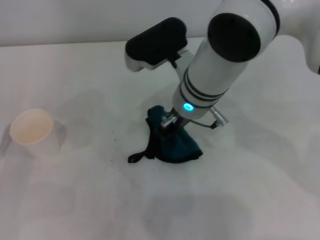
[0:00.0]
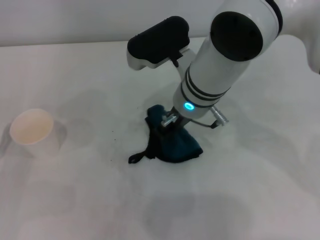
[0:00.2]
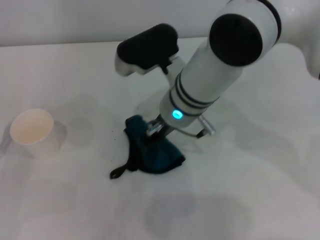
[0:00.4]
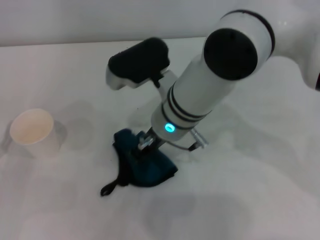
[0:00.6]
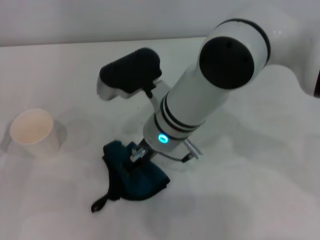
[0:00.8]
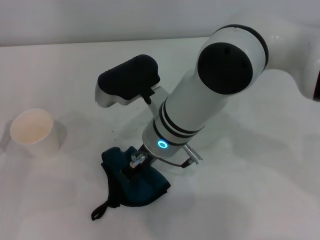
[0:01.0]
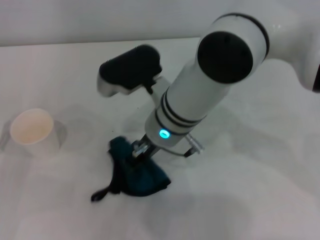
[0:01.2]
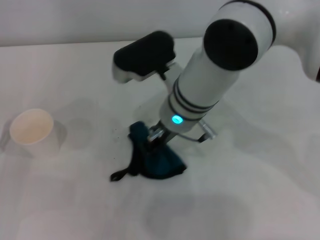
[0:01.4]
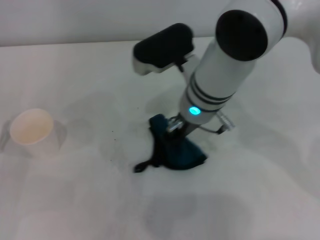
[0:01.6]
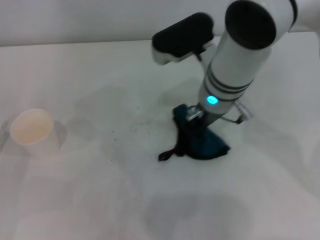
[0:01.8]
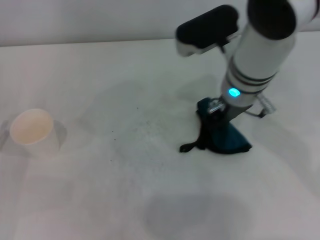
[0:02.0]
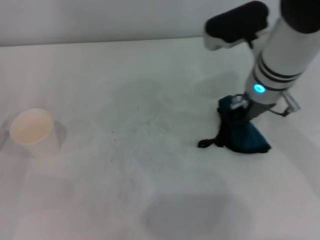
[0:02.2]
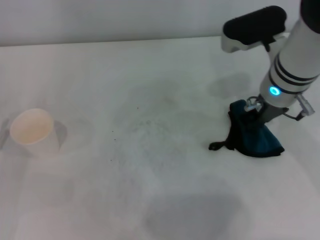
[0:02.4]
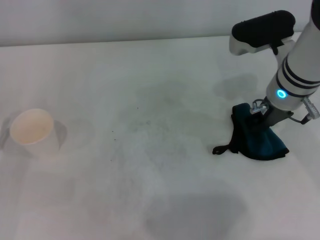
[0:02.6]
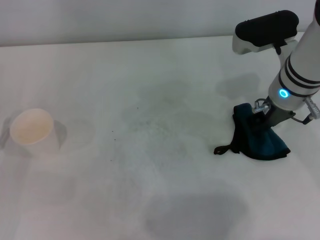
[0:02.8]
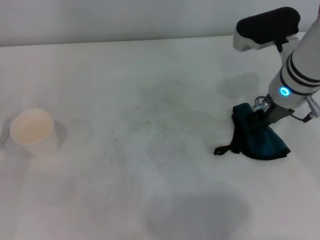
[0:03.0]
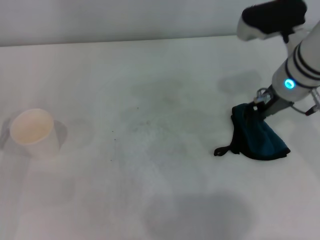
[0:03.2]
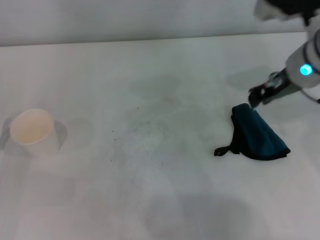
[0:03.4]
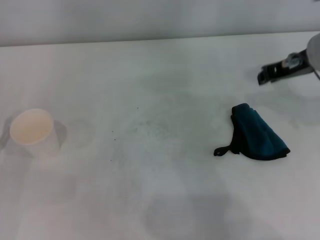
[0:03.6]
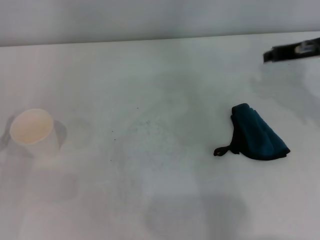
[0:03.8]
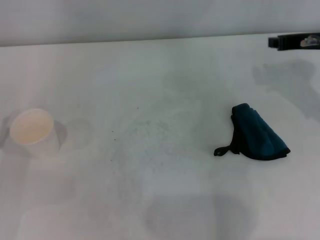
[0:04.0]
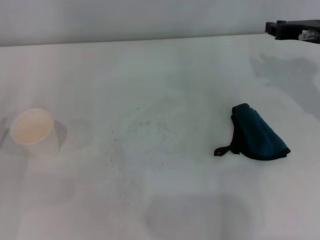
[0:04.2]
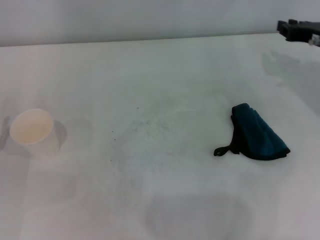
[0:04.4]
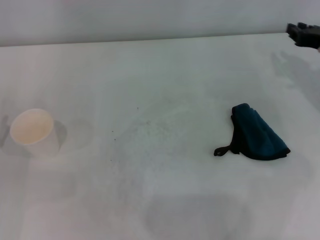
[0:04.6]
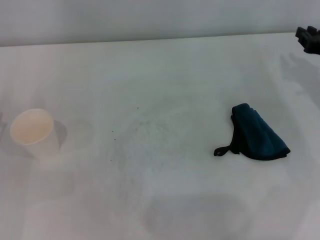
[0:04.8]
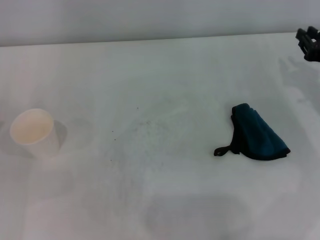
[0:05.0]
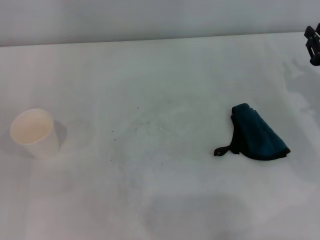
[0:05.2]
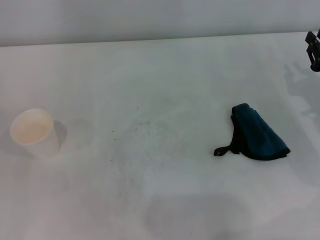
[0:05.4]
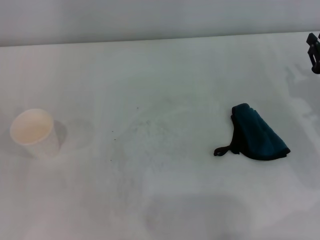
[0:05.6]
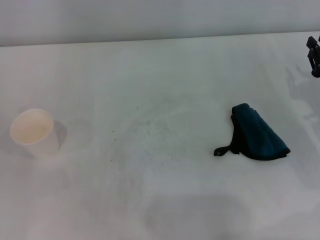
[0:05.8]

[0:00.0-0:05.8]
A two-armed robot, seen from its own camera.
Step, 0:00.0 to 0:02.2: Wipe the stains off the table with the right gripper.
Step, 0:02.6 to 0:03.0: Place the rag on the table with the right gripper.
0:00.0 to 0:01.4: The grippers stay close to where they were, moving slightly.
0:01.4 to 0:02.8: The right gripper shifts some 15 cm to the right.
0:02.8 to 0:04.4: The right gripper moves to the right, about 10 cm.
0:04.4 to 0:05.8: The right gripper travels backward and downward by roughly 10 cm.
